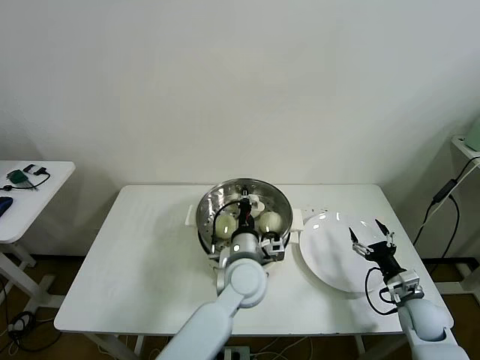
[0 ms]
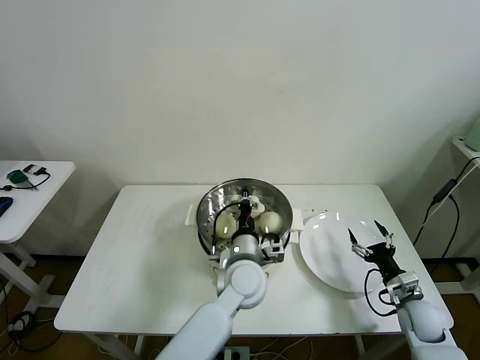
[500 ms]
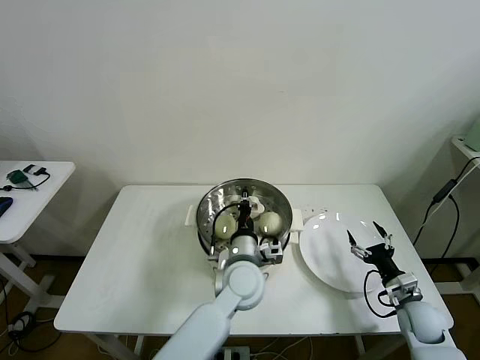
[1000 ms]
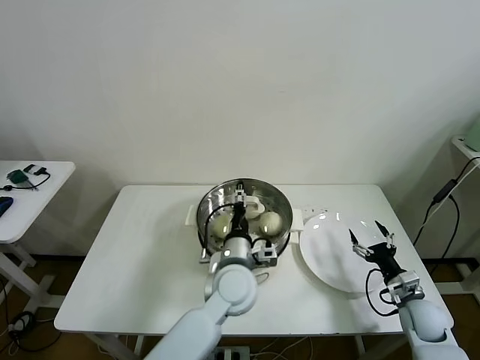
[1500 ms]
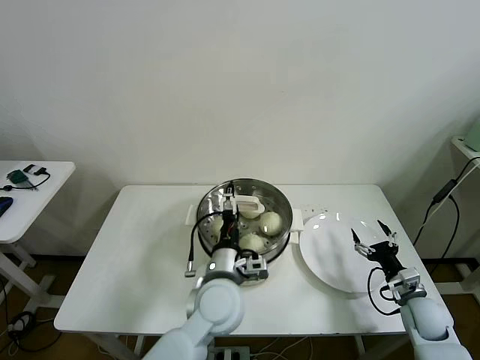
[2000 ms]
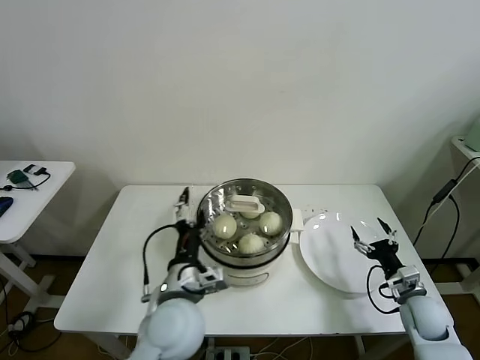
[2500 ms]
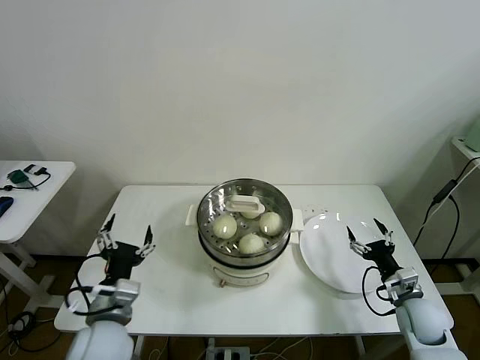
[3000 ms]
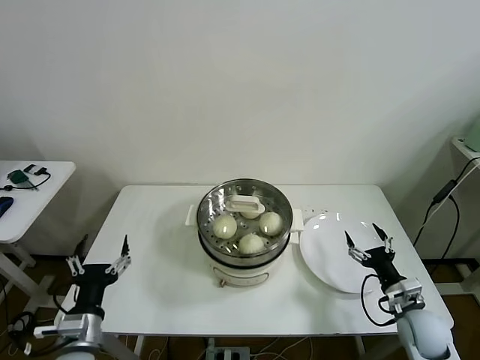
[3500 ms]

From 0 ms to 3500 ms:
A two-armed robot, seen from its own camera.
Task of the whole recording: take steamed baozi put them in steamer then cover it.
From 0 ms to 2000 ms: The left gripper shifts by some 5 cm, and opens.
From 2000 ms to 3500 ms: The right gripper shifts by some 5 cm; the left gripper heads to the left and backward, covering some 30 cm.

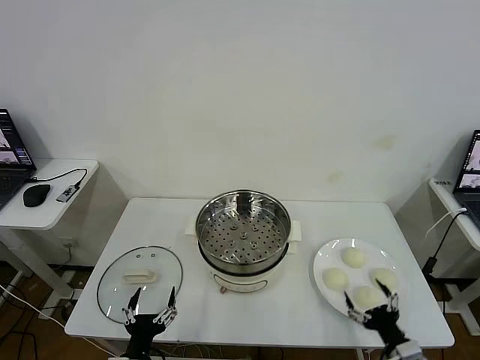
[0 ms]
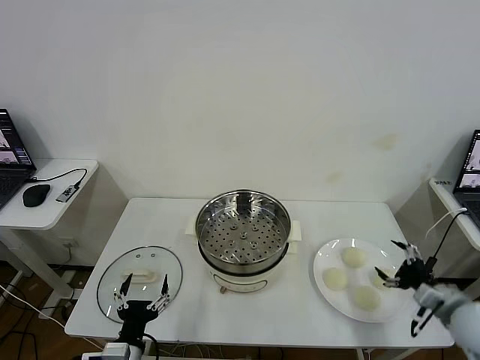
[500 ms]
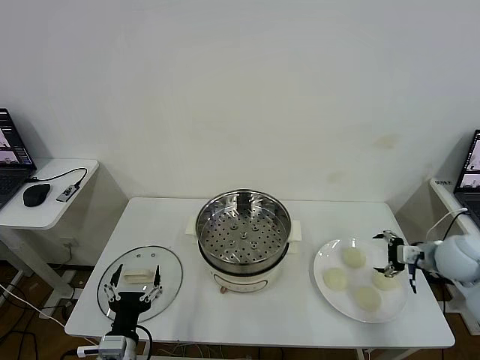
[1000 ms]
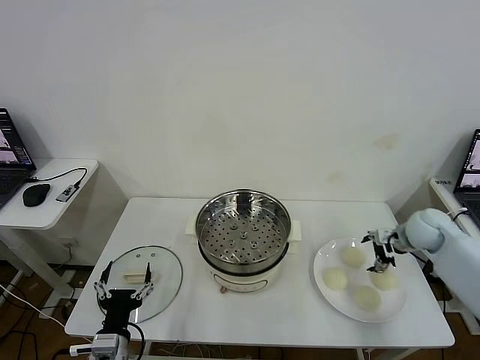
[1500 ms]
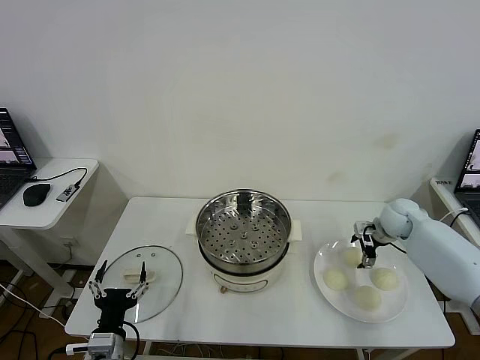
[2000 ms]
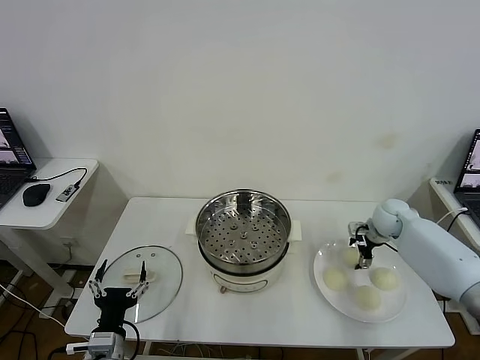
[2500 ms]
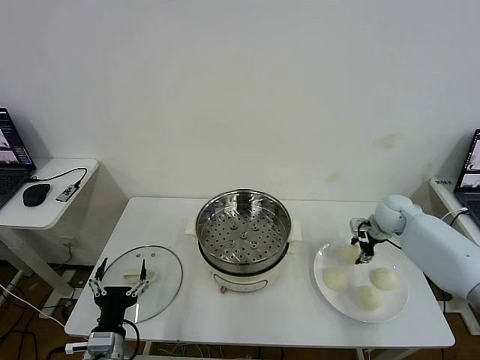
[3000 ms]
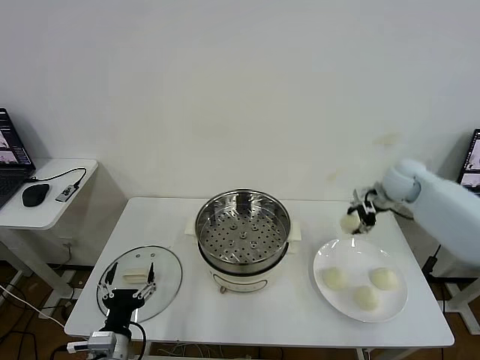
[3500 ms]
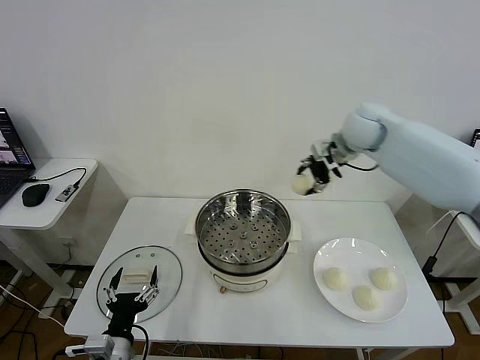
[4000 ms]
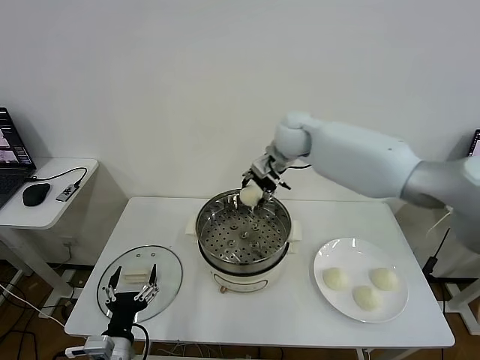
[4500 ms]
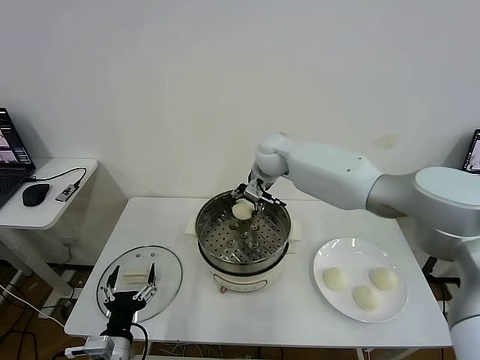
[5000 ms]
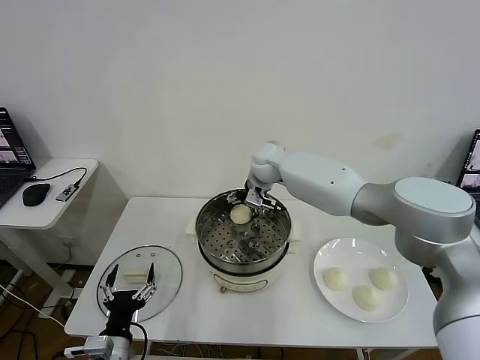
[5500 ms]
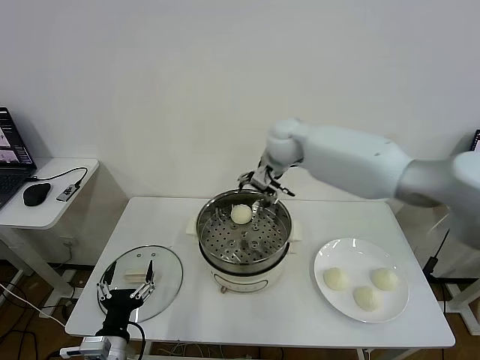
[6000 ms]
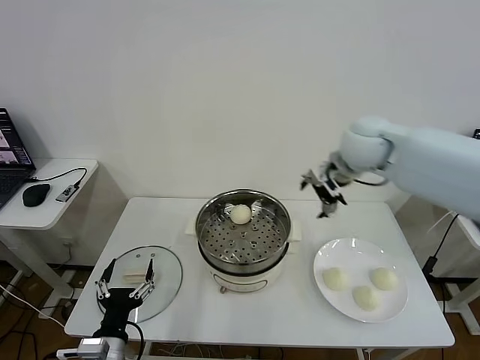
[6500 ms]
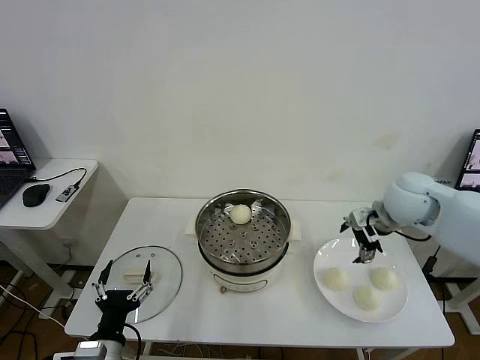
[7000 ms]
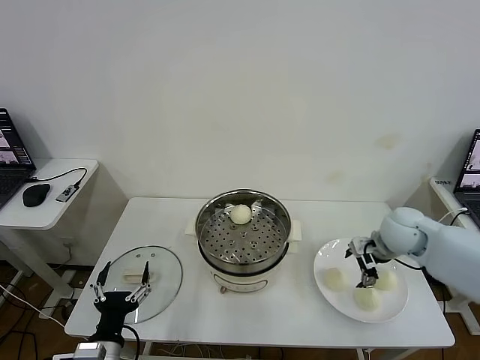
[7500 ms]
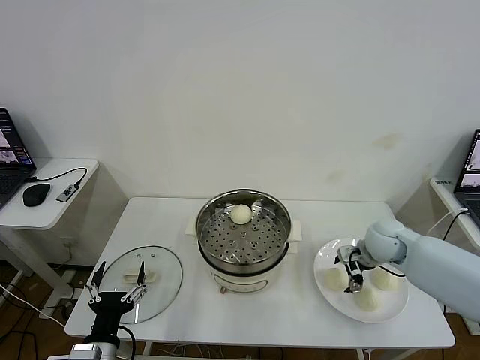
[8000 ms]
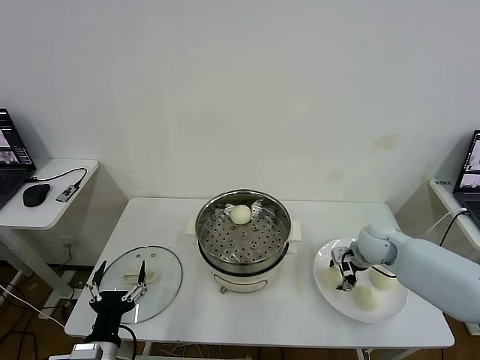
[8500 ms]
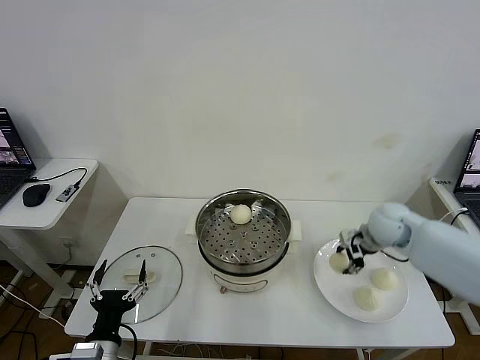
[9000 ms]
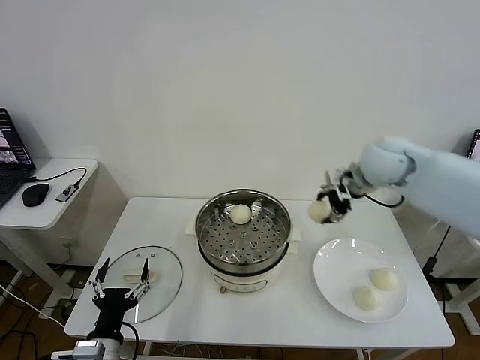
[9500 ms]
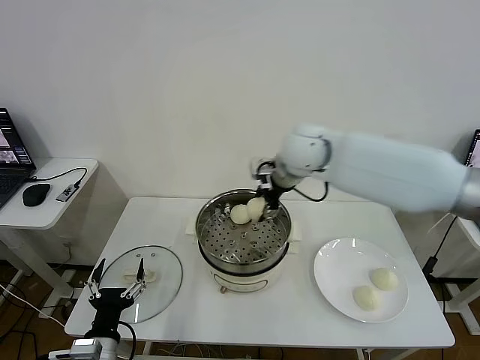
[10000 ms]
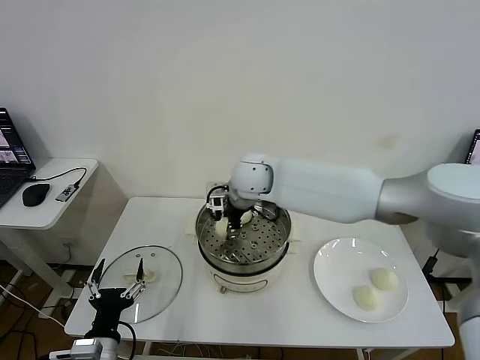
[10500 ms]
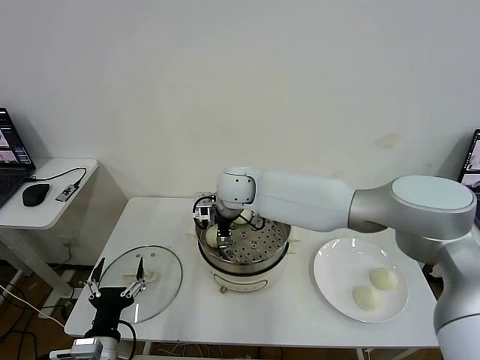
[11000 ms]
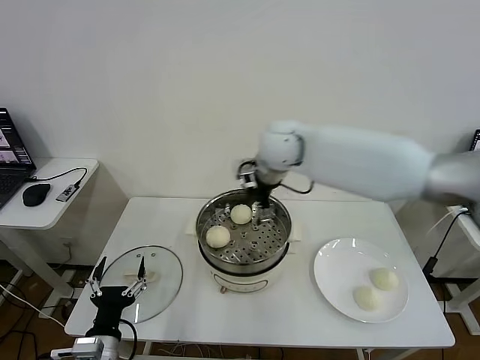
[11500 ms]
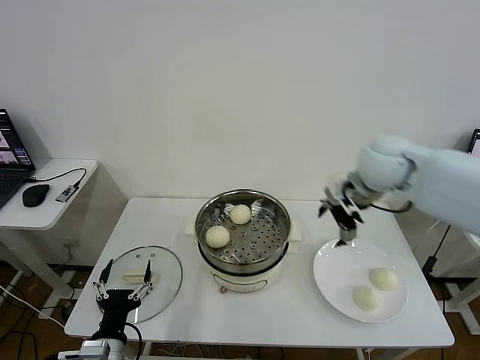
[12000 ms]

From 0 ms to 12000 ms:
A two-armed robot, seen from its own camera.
Task of the whole recording: take steamed baozi put them in steamer then cover it.
Step, from 0 ms to 2500 ms: Grasp the baozi in the plate with right gripper.
Step, from 3000 ms to 5500 ms: Place the baozi on the steamer with right gripper.
Step, from 6000 ms to 8500 ms: Grasp the baozi in the plate with right gripper.
Step, from 9000 ms to 11000 ms: Place the baozi on the steamer with right gripper.
From 2000 ms to 4000 ms: The right gripper is displaced upward and to the left by about 30 cm, and closes its fingers.
From 4000 ms to 6000 ms: The right gripper shifts some 10 cm to the left, and opens.
From 6000 ms to 8000 ms: The right gripper moves downward, to the right and backward, approximately 30 cm.
From 8000 ms to 10000 ms: The right gripper is displaced to the left and upward by roughly 30 cm, and closes.
From 10000 ms to 12000 ms: The right gripper is displaced to the right by some 20 cm, and opens up.

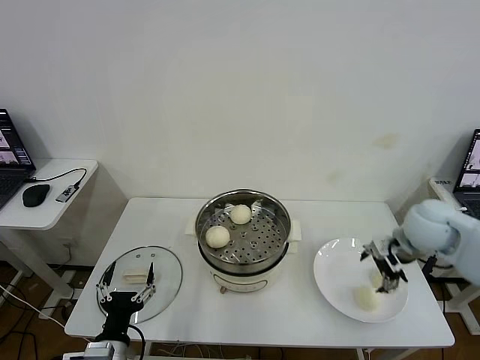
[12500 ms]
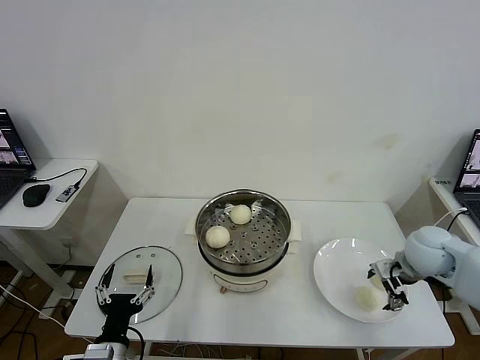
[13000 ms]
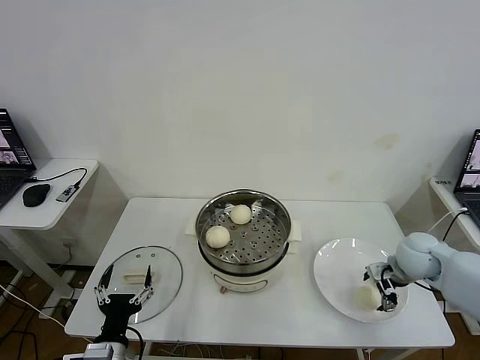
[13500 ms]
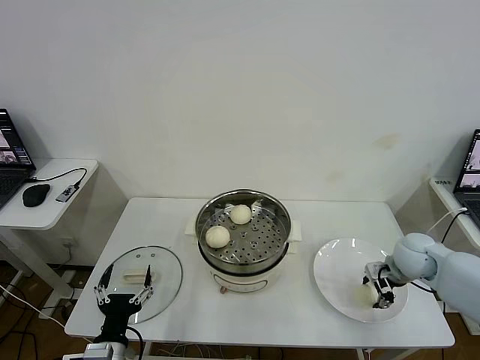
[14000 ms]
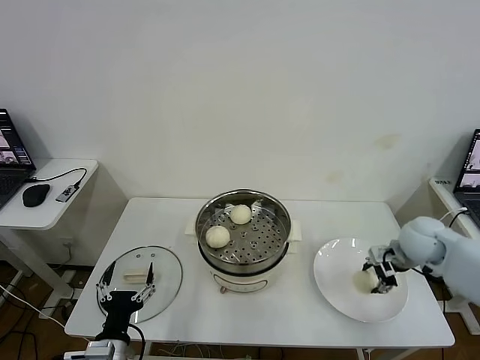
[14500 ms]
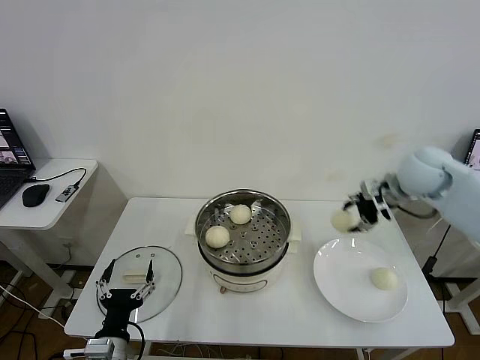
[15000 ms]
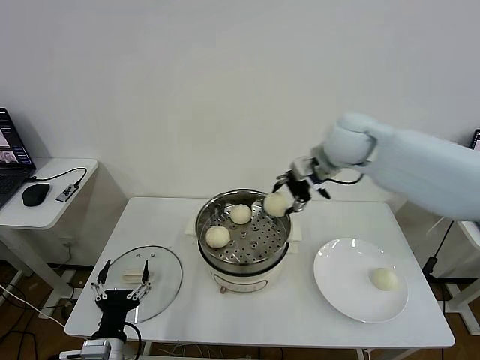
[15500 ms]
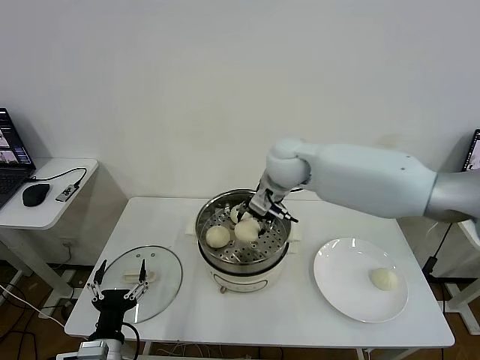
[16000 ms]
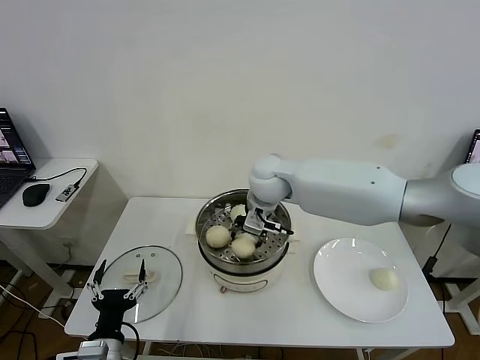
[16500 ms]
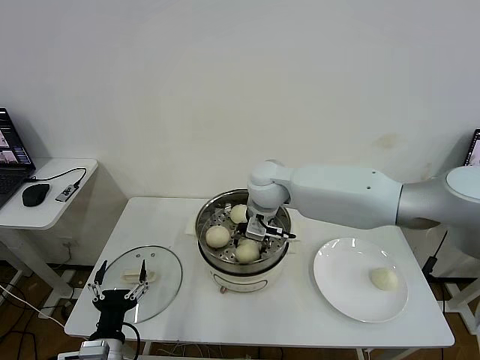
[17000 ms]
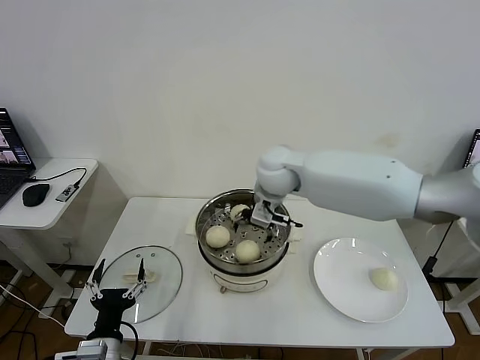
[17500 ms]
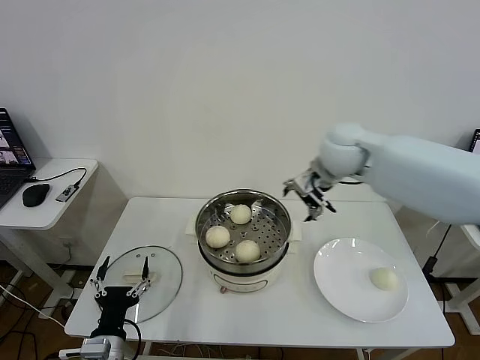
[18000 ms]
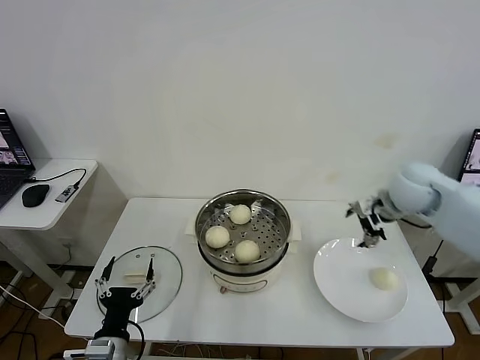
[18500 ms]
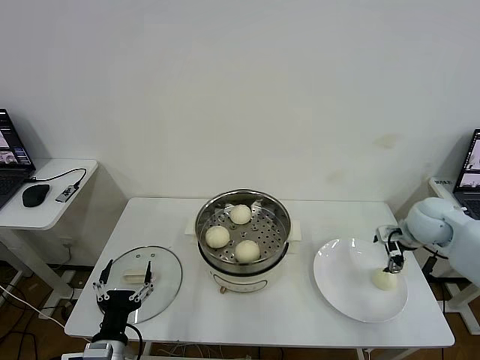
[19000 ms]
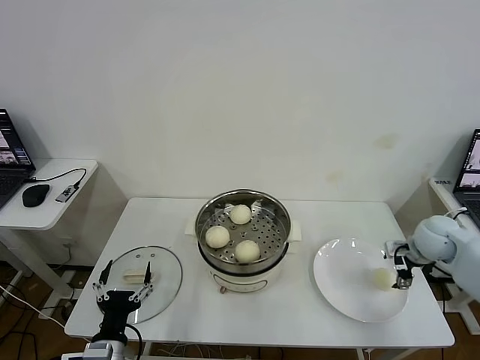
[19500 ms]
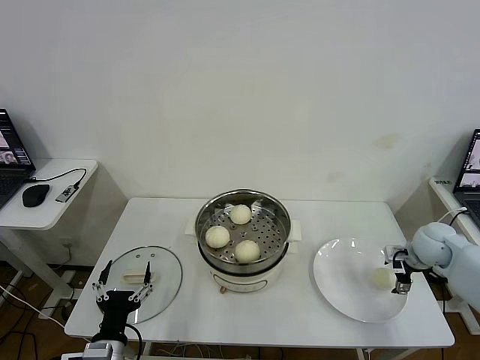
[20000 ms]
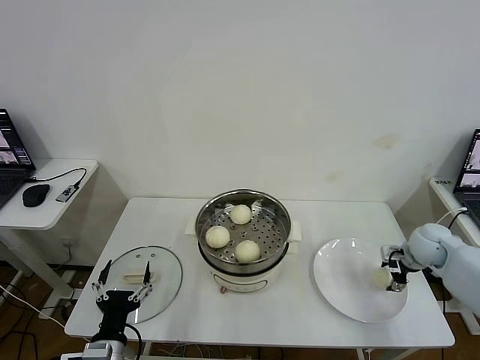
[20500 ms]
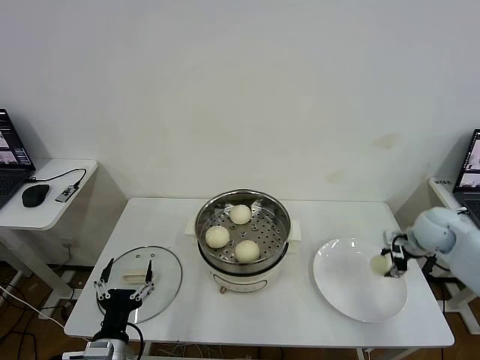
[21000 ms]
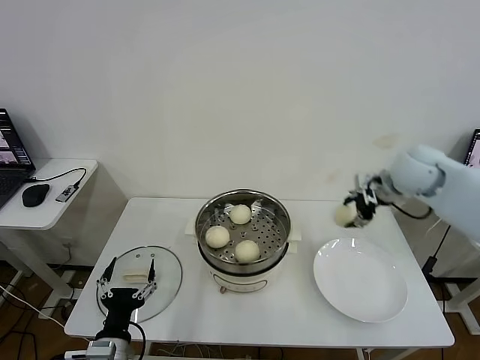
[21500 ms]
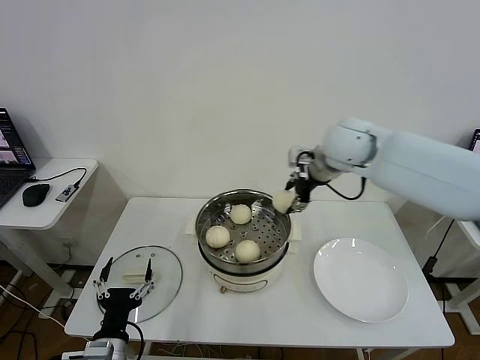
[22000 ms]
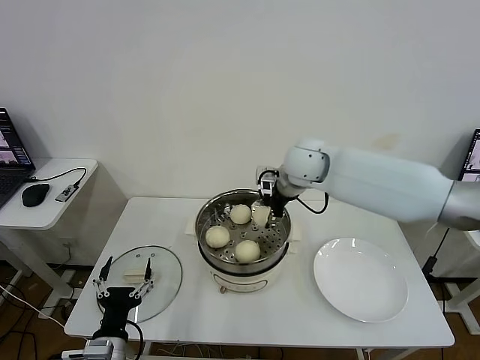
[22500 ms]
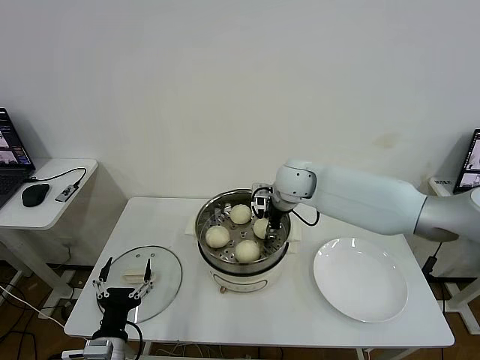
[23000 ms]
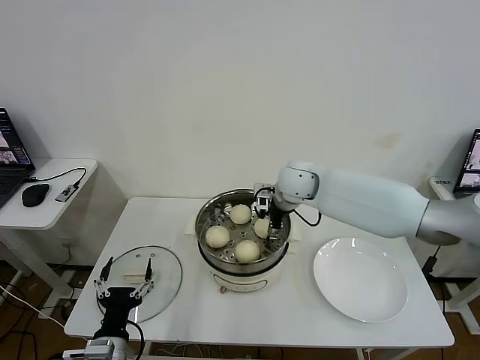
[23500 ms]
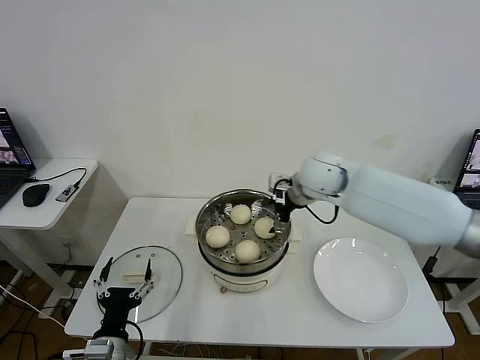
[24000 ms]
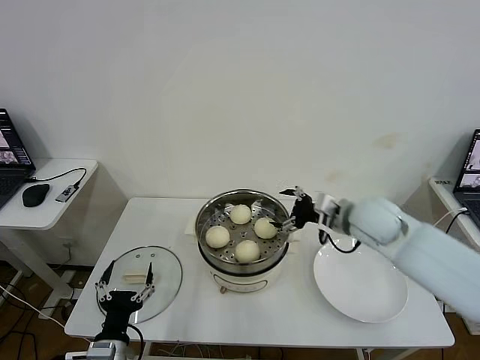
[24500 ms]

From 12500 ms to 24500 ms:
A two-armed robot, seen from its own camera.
Task of the whole recording: take steamed baozi put them in steamer then cover it.
Step, from 12500 ms to 14000 ms: Grasp the baozi in the plate with right gripper.
Step, from 14500 ms to 17000 ms: Place the baozi on the steamer with right gripper.
Step, from 17500 ms to 20500 ms: Grasp the baozi in the plate with right gripper.
Step, from 21000 ms to 23500 ms: Place the baozi on the steamer with right gripper.
From 12500 ms to 14500 ms: The right gripper closes.
From 14500 ms to 16500 ms: The right gripper moves to the left, about 35 cm.
From 16500 ms to 18500 ms: The right gripper moves to the right, roughly 30 cm, and opens up.
From 18500 ms to 20500 ms: The right gripper goes about 15 cm downward and to the right, and closes up.
From 20500 ms to 22500 ms: The right gripper goes roughly 35 cm to the left and upward.
From 22500 ms to 24500 ms: The right gripper is displaced to the right, backward and downward by approximately 20 cm, and opens its fingers.
